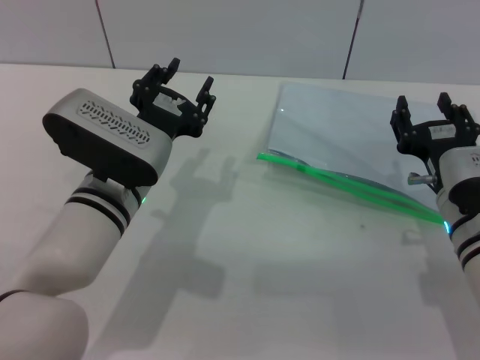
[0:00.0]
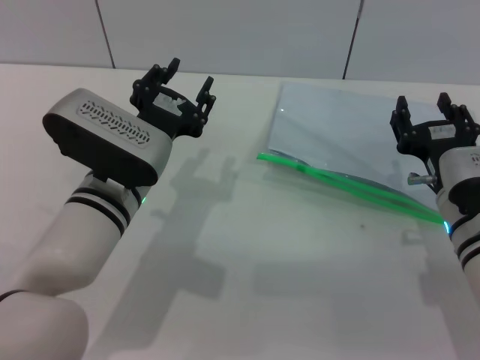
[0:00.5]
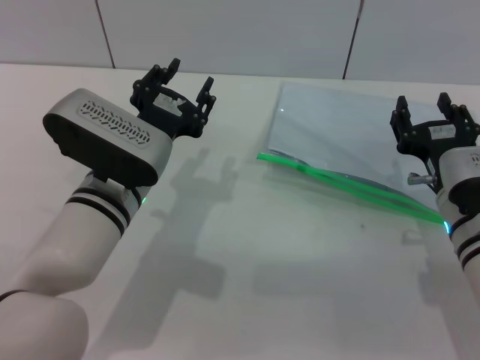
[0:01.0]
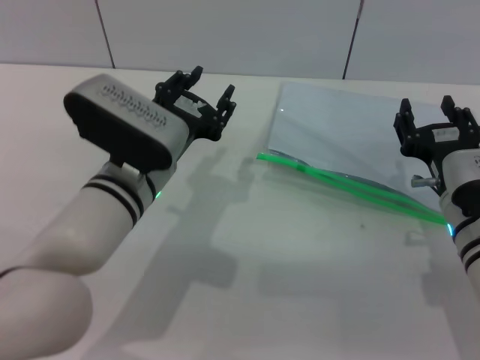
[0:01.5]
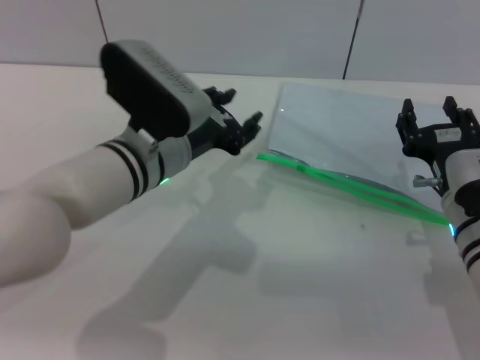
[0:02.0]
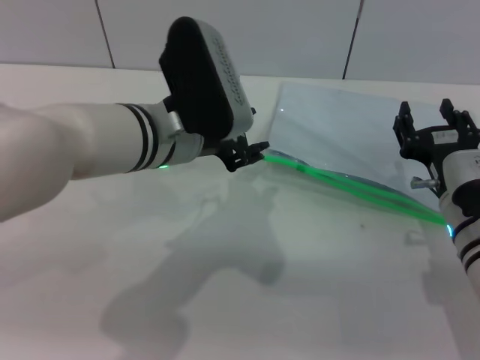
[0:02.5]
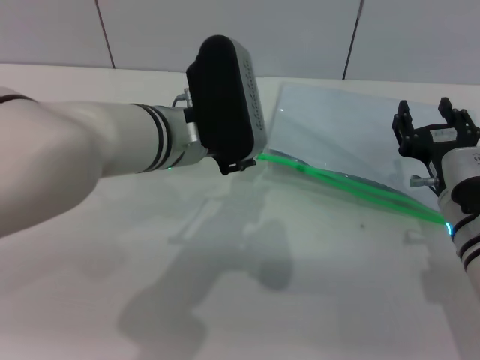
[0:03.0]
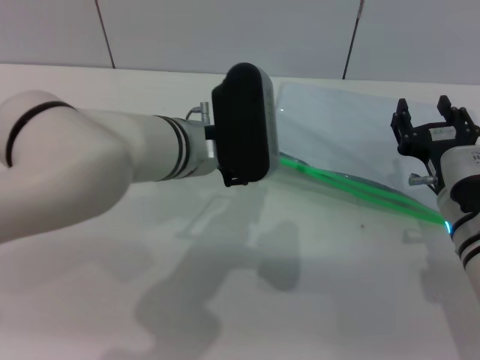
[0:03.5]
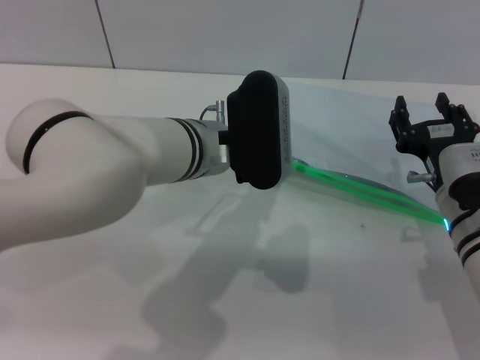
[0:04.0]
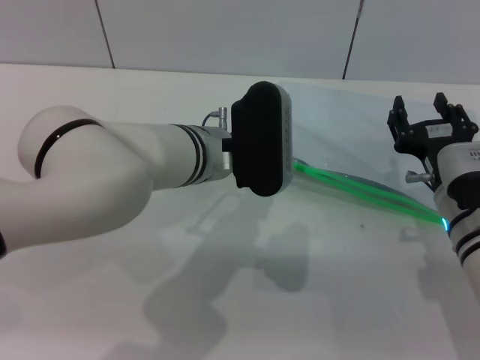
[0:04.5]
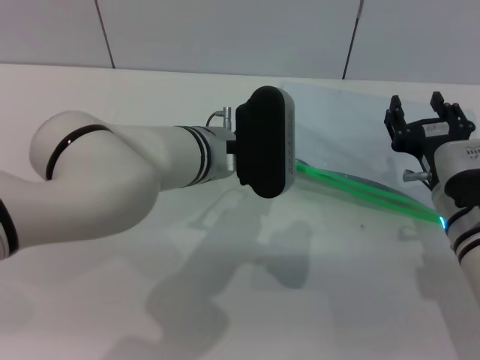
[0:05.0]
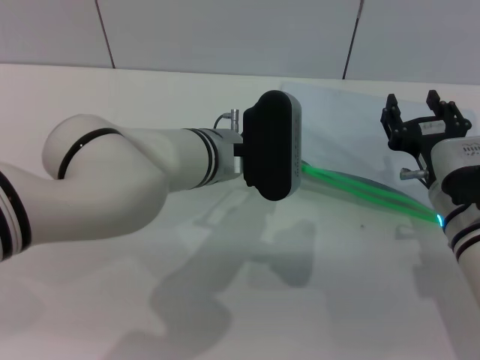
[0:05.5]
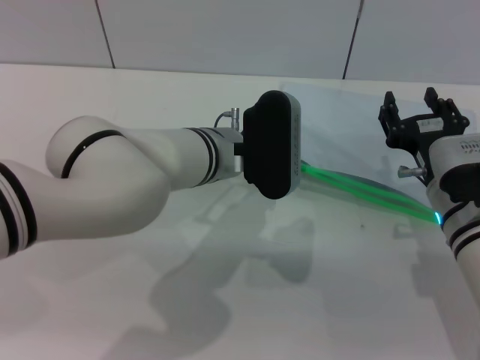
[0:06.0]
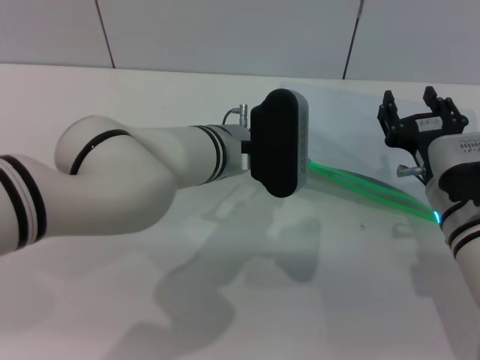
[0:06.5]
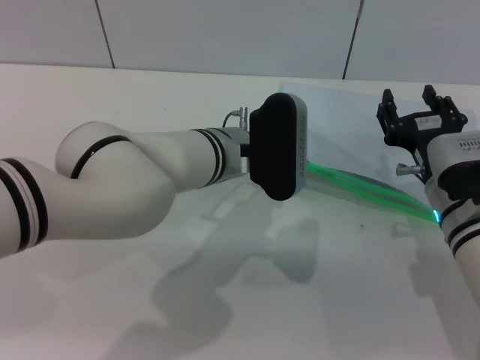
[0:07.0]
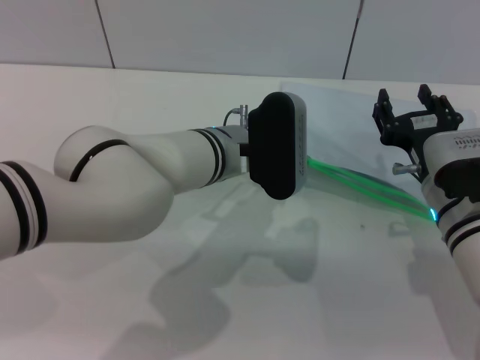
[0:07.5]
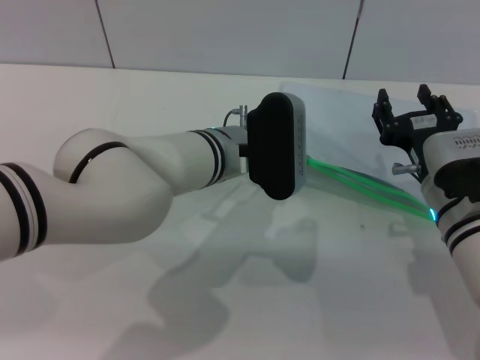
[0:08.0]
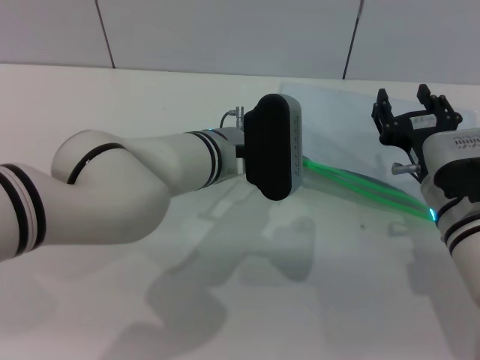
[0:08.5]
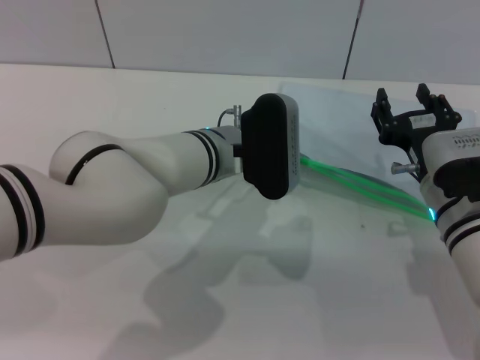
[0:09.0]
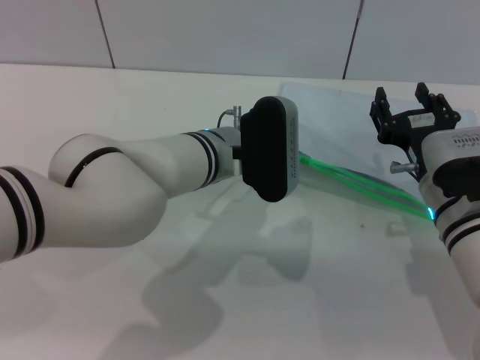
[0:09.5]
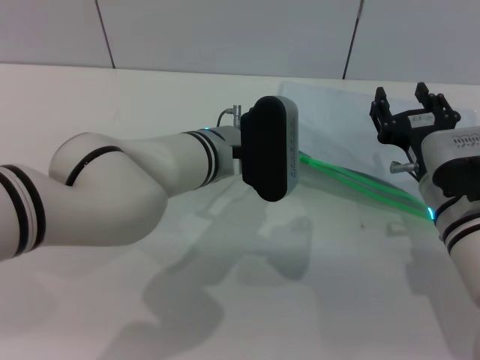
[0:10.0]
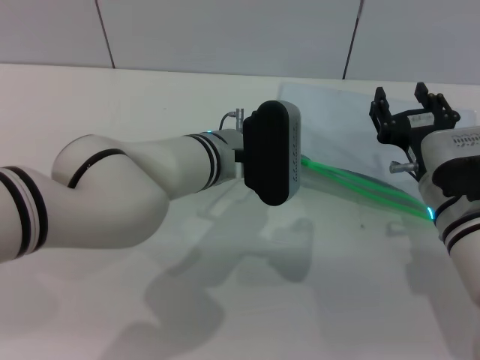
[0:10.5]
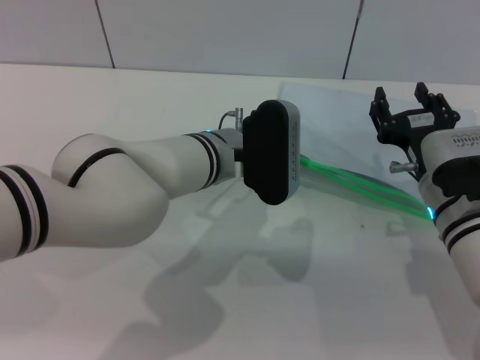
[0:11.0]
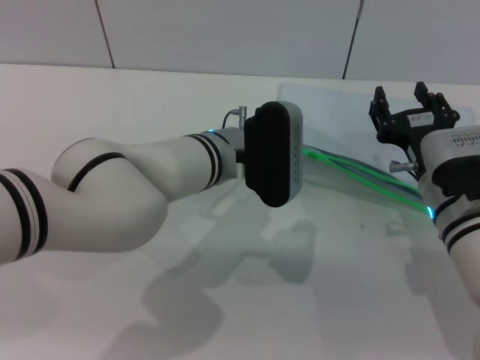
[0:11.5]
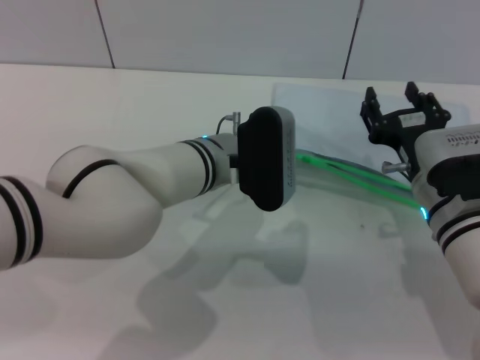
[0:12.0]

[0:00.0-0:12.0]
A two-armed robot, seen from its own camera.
0:02.0 to 0:04.0: The left gripper ends up roughly 5 cm from where it was.
0:04.0 to 0:06.0: The grippers move only a little.
0:06.0 to 0:08.0: The two grippers keep their place.
0:08.0 to 0:10.0: Both grippers stay about where they are.
0:10.0 to 0:12.0: The left gripper closes its fingers.

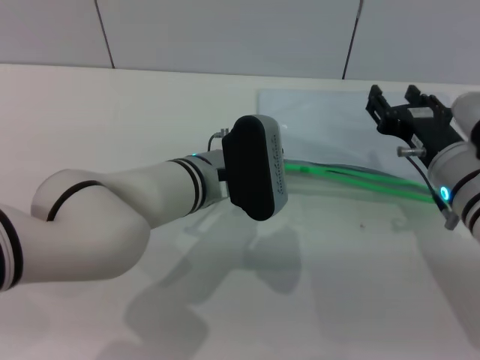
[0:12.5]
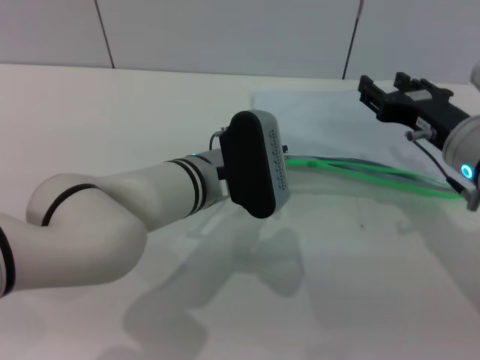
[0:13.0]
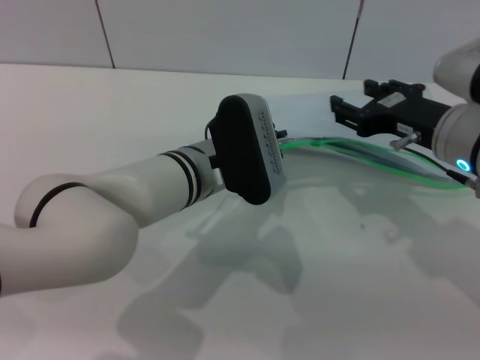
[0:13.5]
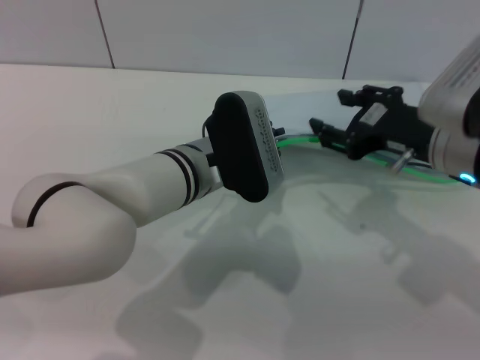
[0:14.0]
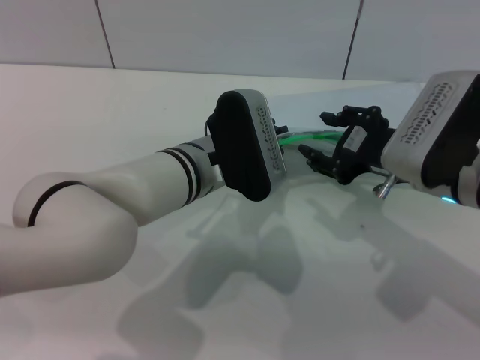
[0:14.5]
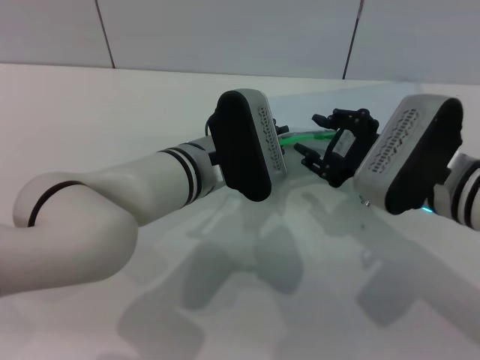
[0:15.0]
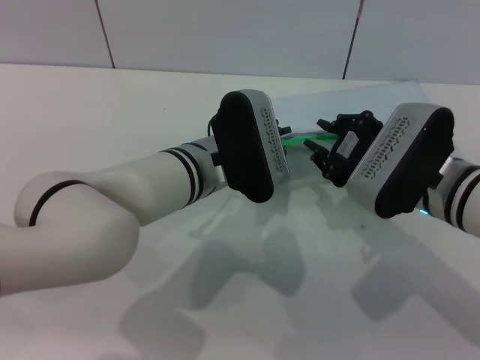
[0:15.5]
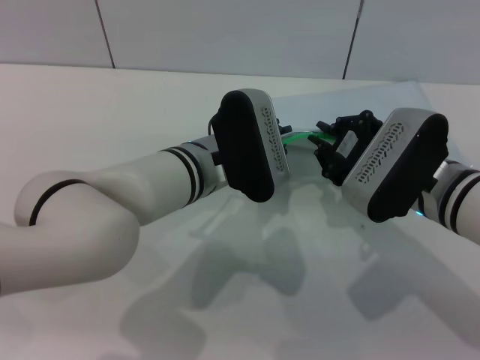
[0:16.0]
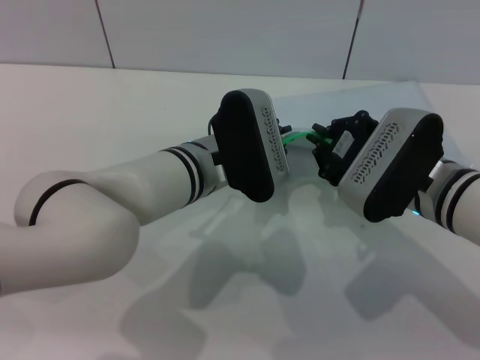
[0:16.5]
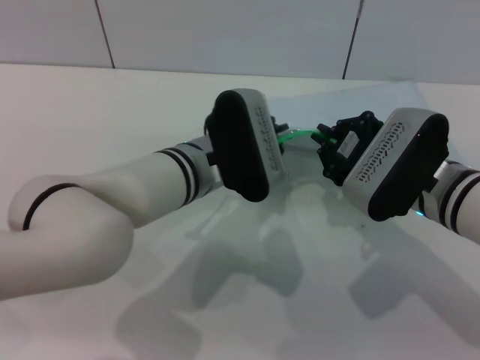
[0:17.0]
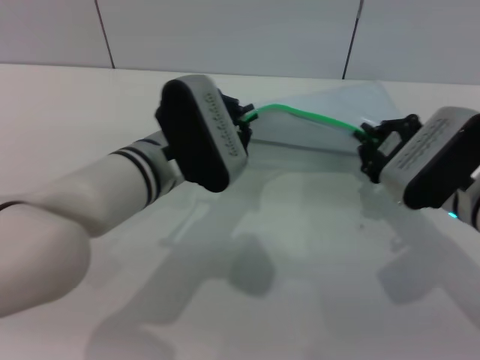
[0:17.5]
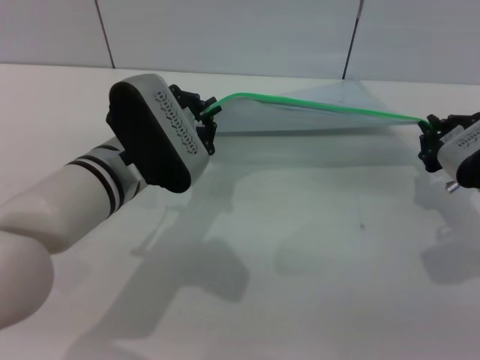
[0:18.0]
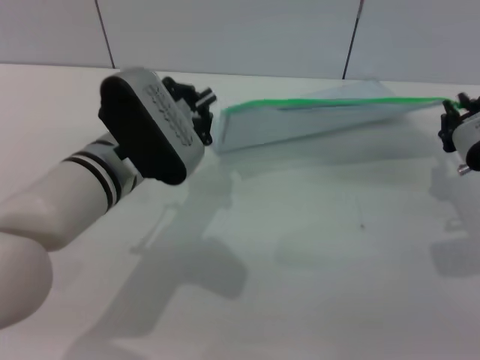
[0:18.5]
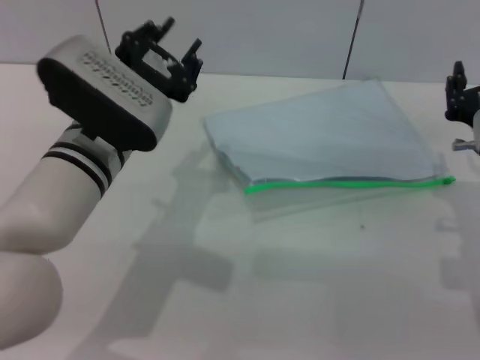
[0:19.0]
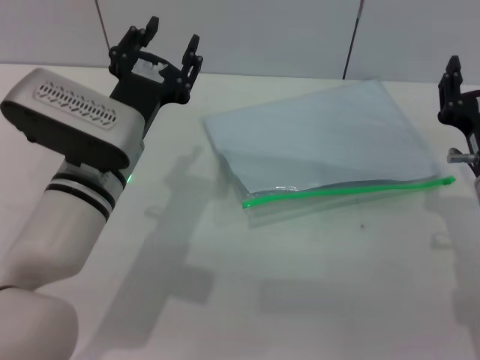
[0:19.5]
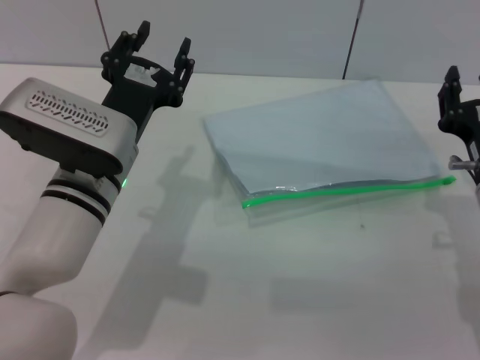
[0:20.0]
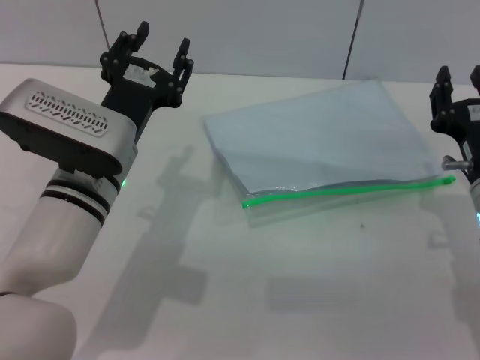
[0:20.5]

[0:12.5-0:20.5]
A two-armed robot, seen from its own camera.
Step, 0:14.0 to 0:18.0: Pulling up the zipper on the transparent plastic bag with the right gripper to close it.
Step, 0:18.5 to 0:19.0: Place the transparent plastic bag.
0:14.5 to 0:16.5: The right gripper closes.
0:16.5 to 0:18.5: The left gripper is displaced to the left by approximately 5 cm; the right gripper travels to the right by roughly 10 cm.
0:18.5 to 0:20.5: The left gripper opens up. The right gripper ends up roughly 5 cm from where it was, and opens up.
